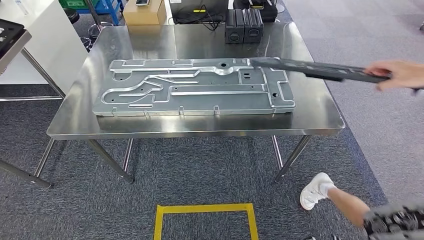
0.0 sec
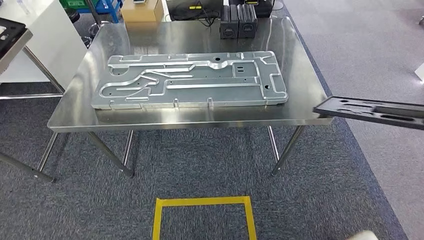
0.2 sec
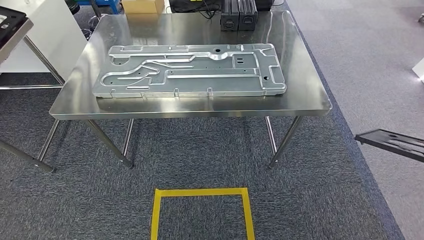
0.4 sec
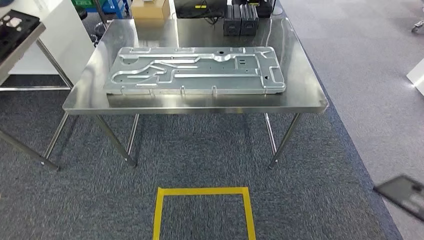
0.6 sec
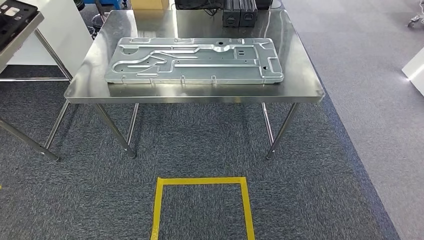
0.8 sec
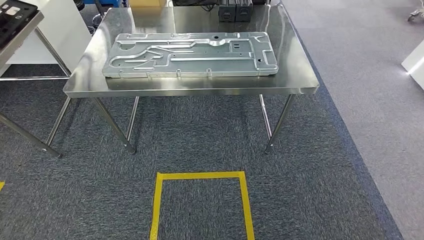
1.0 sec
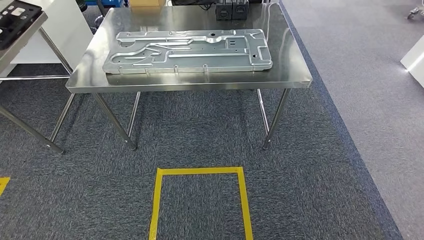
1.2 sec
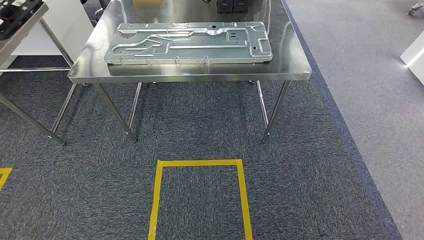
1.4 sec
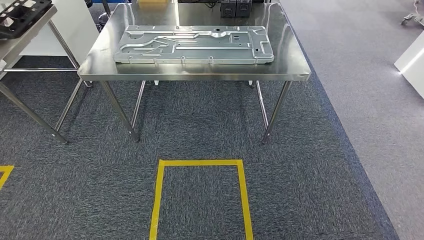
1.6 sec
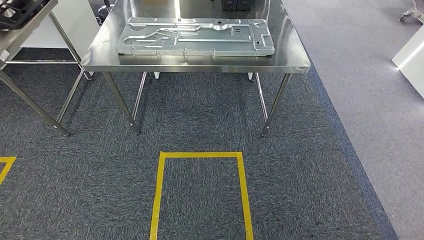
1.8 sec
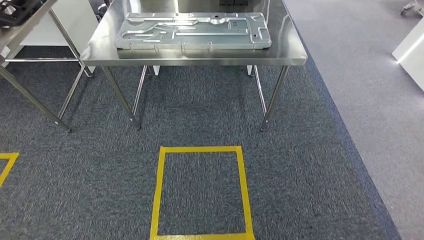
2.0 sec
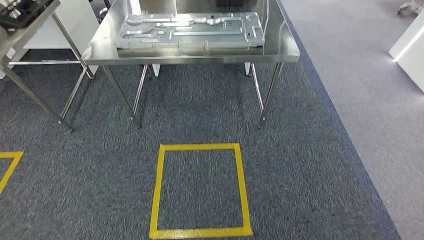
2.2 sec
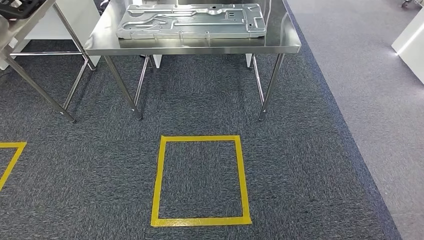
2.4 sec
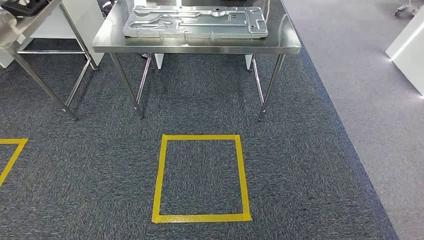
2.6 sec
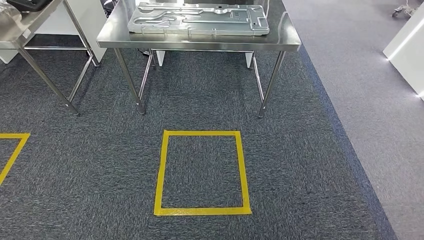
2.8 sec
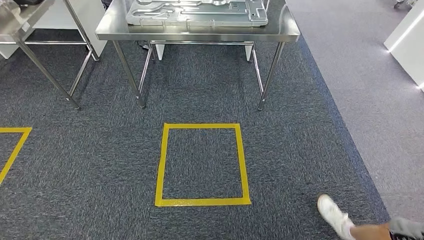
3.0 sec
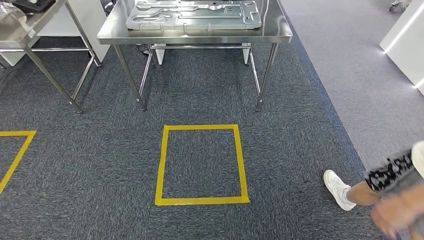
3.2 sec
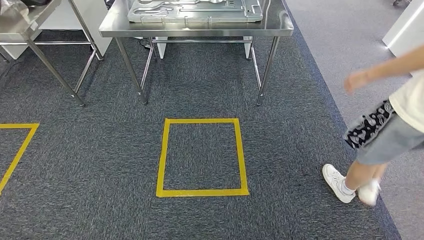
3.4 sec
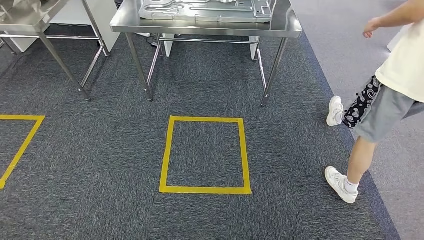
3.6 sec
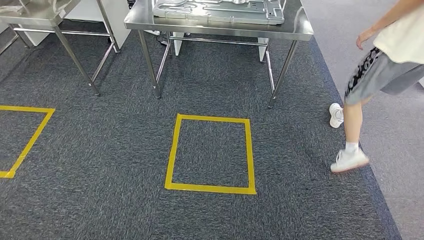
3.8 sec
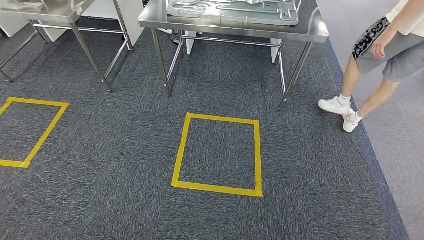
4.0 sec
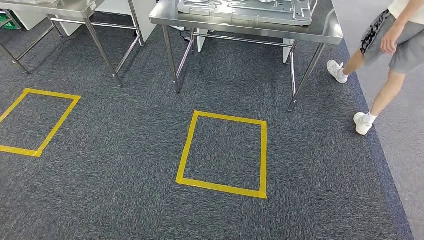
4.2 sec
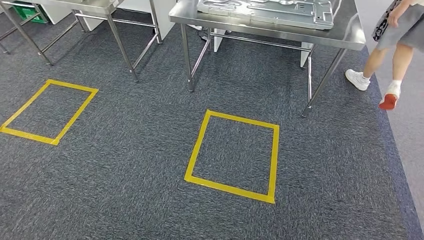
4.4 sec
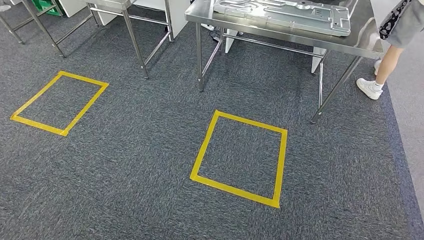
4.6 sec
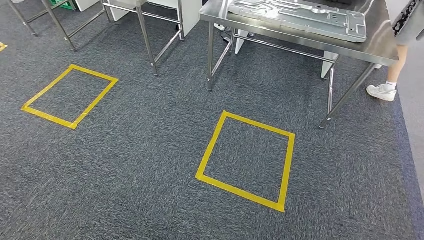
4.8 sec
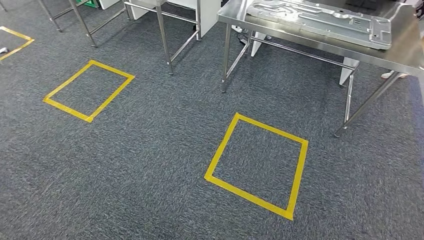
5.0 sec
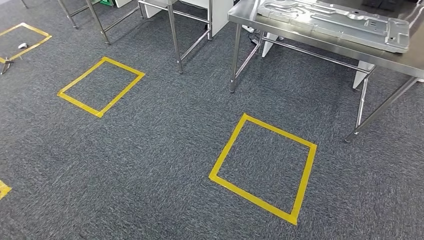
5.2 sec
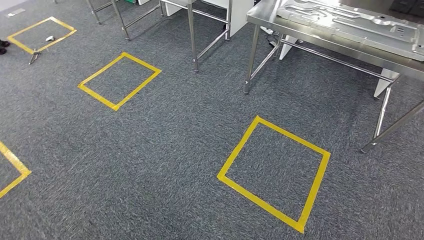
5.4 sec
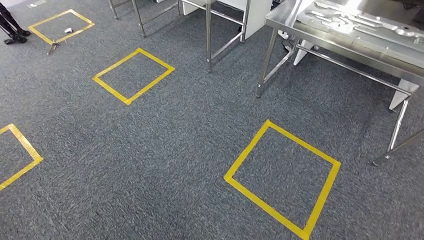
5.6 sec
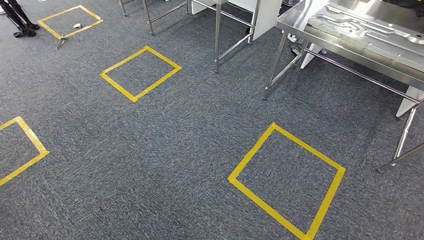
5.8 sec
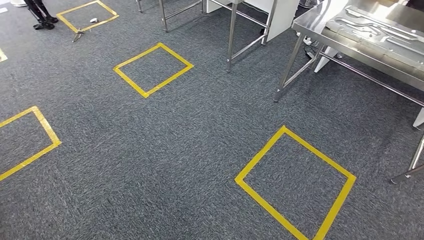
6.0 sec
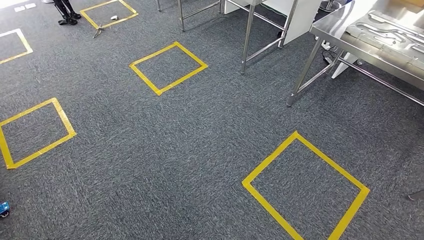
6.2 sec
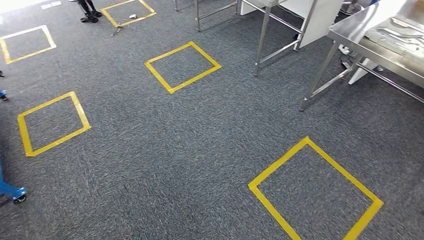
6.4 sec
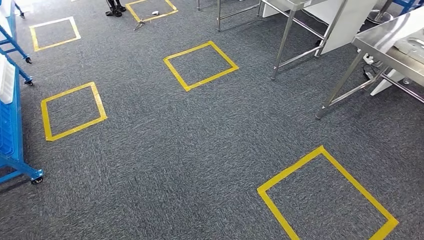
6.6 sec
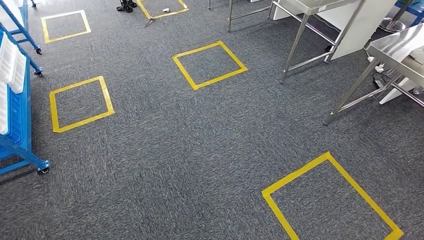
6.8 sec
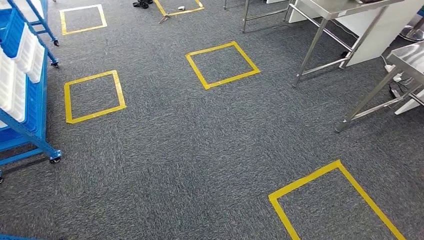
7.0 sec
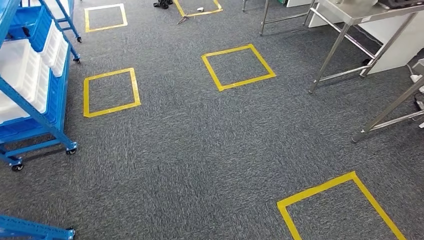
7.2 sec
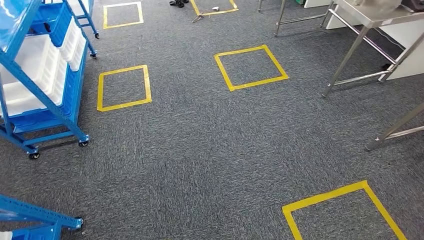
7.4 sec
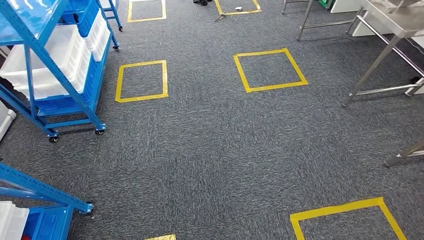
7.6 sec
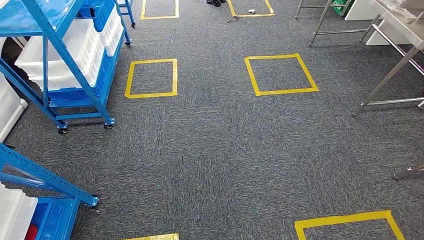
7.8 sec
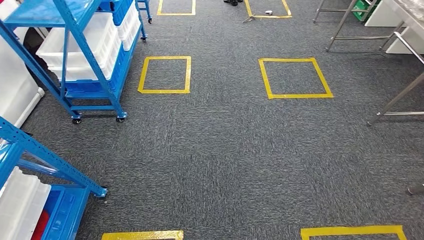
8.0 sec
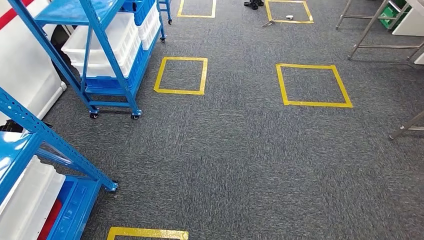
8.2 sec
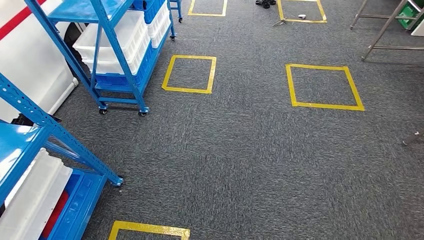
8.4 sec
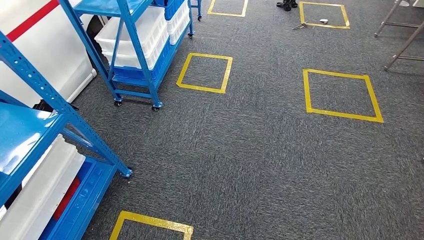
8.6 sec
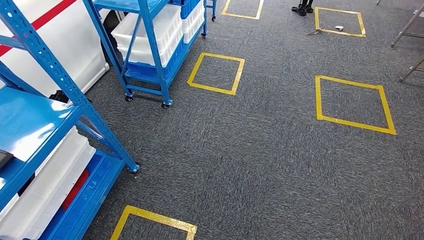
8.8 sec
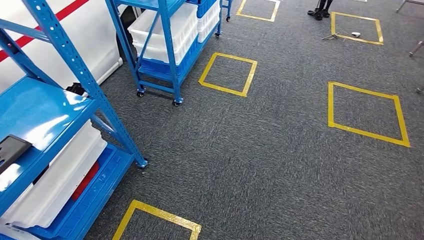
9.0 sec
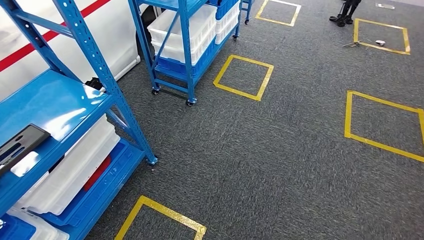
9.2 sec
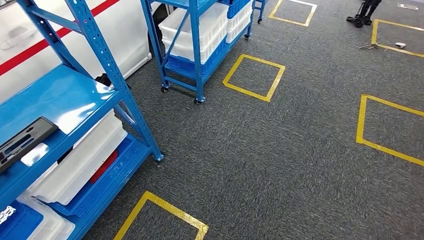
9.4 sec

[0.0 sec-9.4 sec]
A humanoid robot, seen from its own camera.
Step, 2.8 sec to 9.4 sec: Return to the initial position at the shelf.

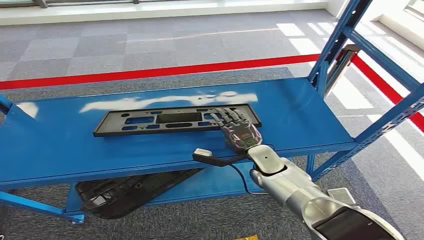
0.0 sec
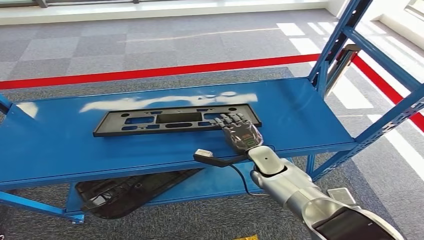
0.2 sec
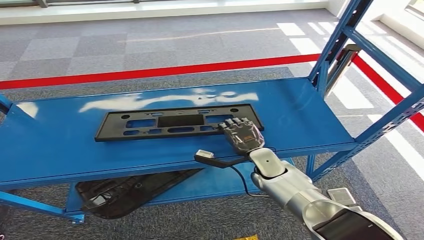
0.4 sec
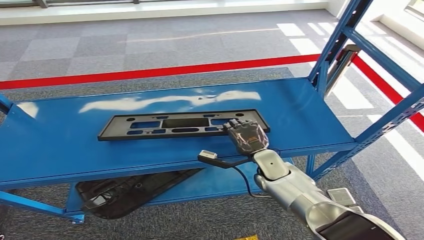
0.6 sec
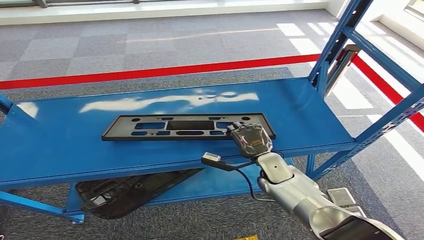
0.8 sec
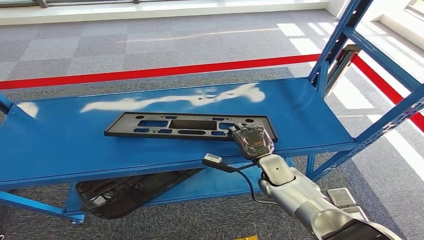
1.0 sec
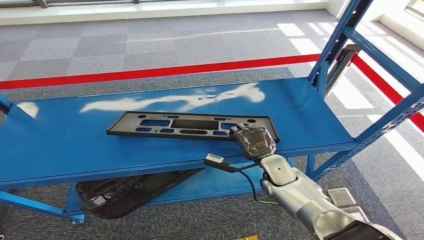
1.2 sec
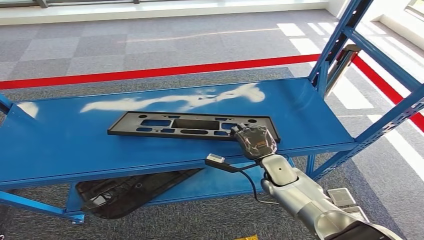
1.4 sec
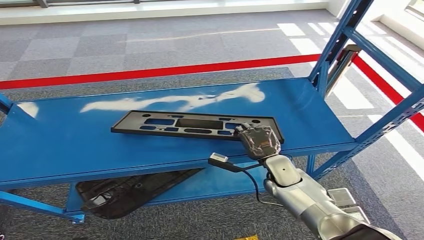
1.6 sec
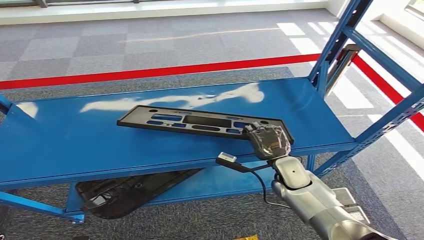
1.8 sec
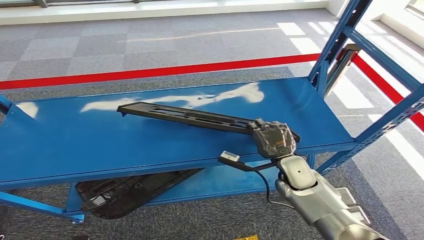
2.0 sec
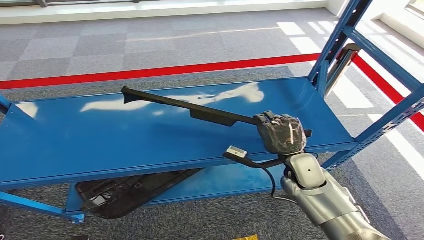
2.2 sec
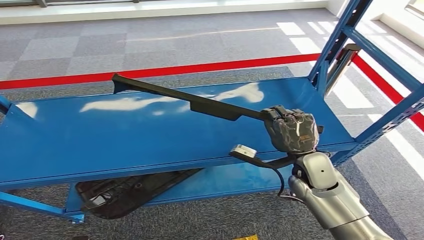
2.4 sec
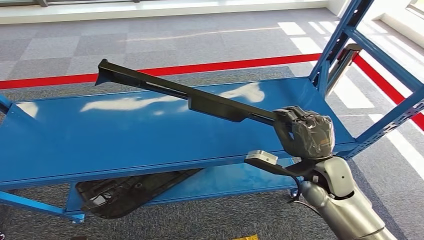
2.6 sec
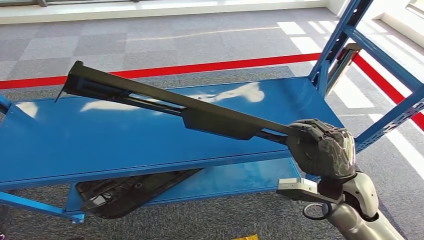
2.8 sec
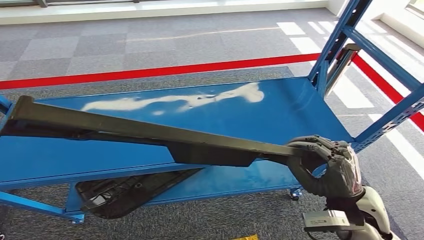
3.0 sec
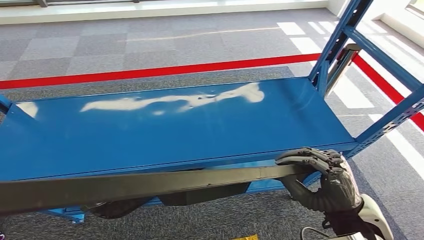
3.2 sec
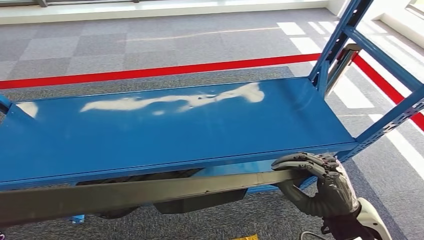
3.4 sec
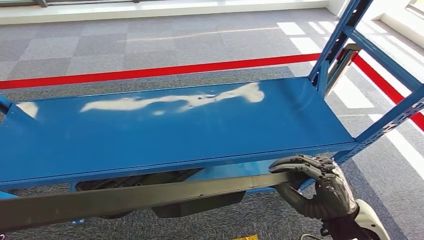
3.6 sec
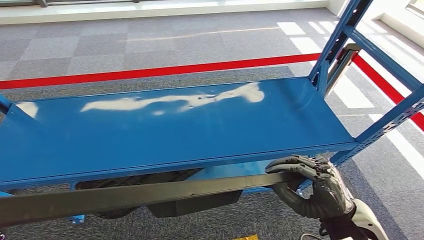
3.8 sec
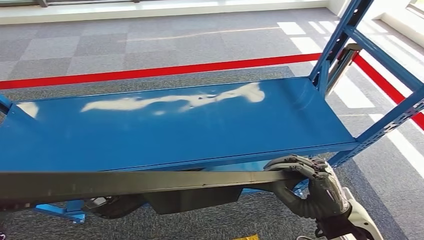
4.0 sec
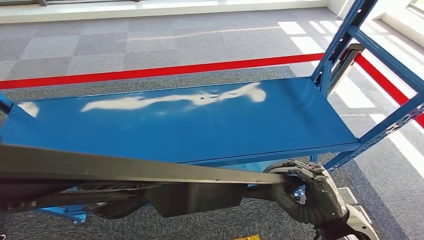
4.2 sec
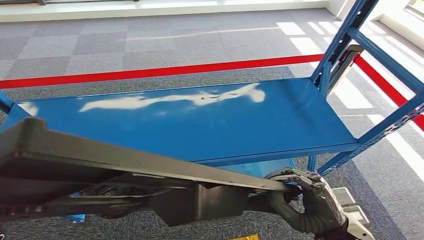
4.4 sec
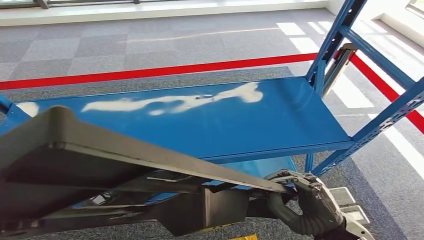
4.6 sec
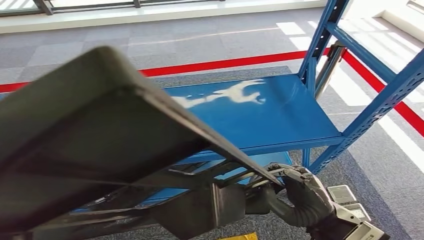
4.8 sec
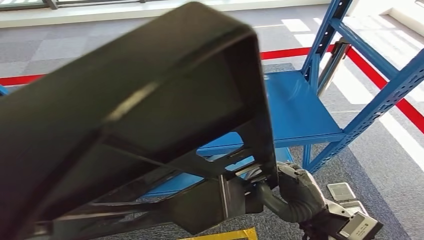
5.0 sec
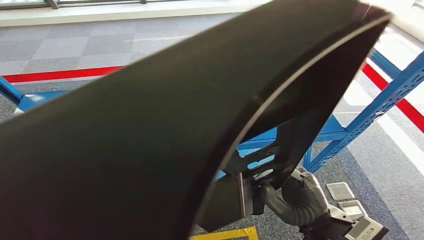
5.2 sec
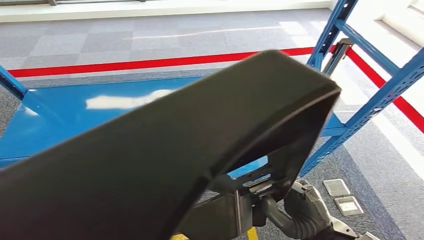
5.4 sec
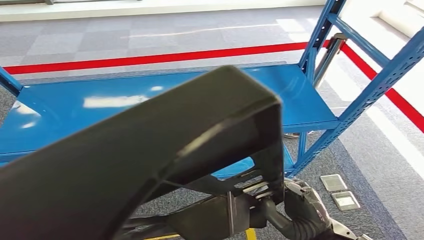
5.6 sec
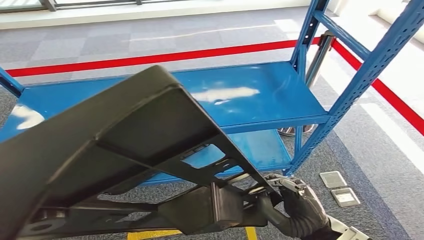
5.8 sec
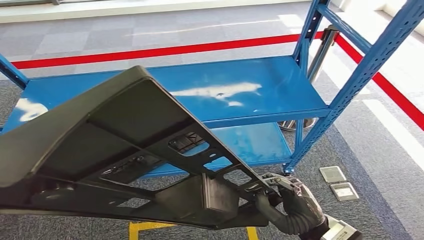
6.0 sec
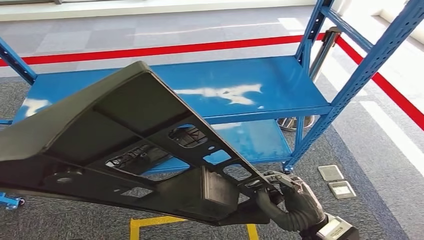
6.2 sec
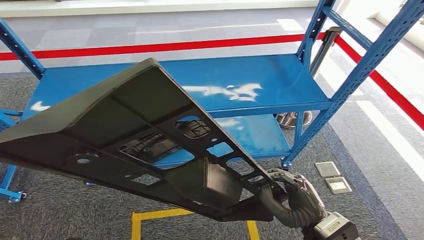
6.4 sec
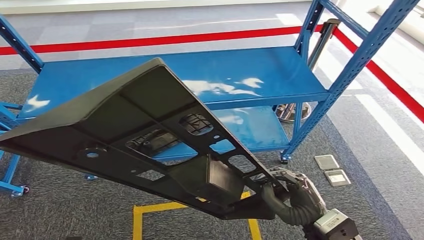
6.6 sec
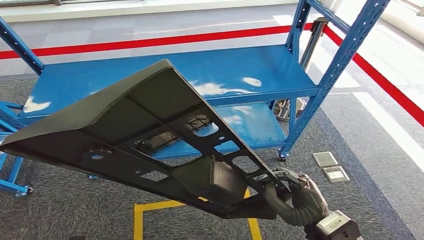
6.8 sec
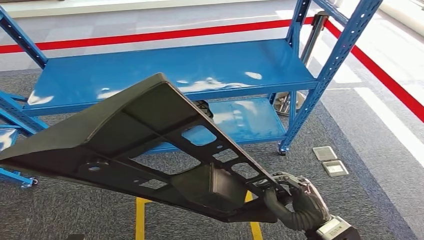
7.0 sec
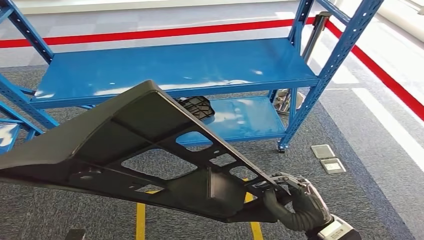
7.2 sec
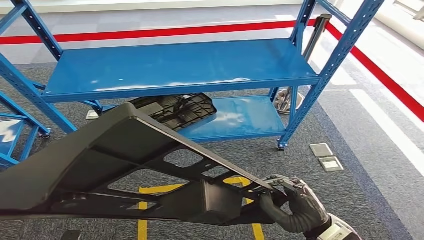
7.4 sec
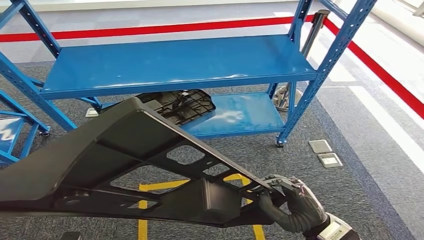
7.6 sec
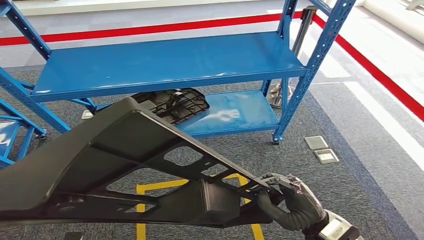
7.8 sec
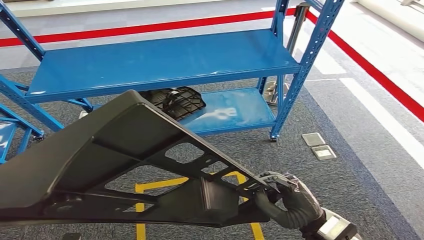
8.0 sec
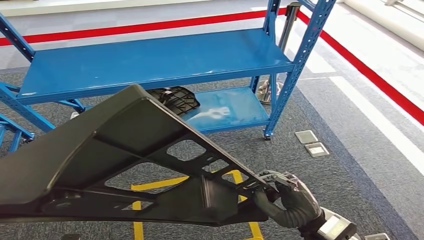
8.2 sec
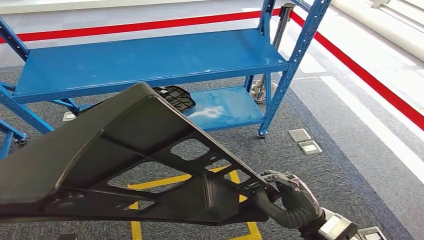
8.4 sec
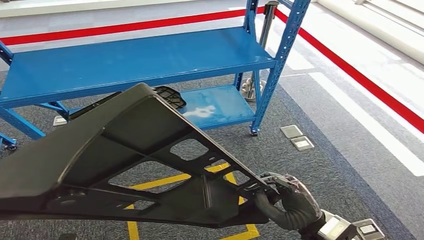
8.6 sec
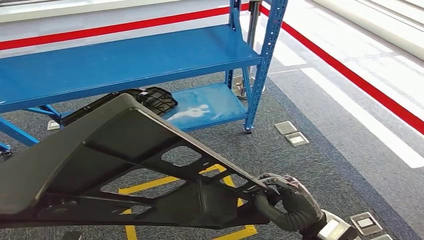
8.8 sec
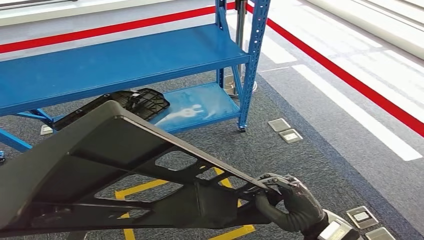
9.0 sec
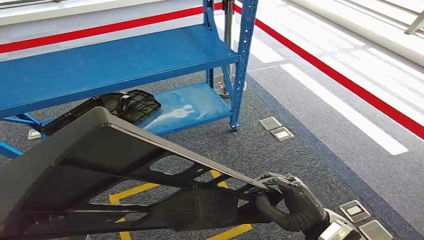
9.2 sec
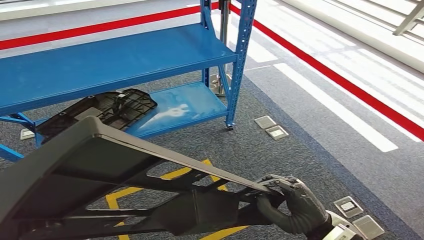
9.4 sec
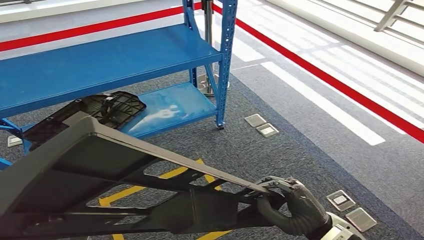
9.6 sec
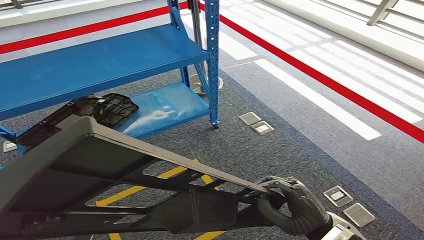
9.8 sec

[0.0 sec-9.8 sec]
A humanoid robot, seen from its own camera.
Step, 0.0 sec to 3.2 sec: Pick up the large material from the shelf.
